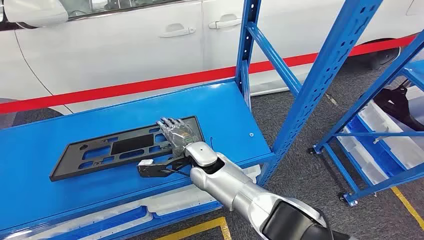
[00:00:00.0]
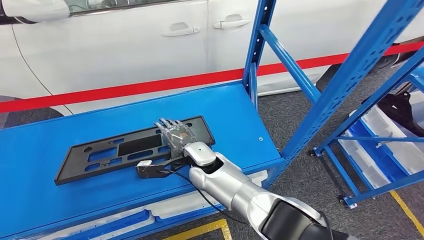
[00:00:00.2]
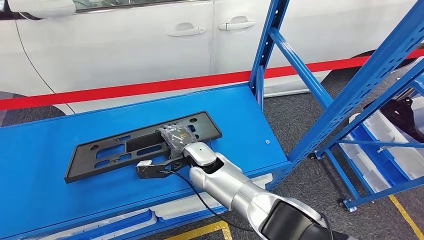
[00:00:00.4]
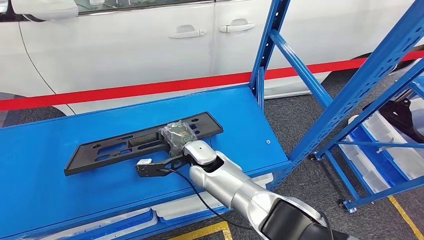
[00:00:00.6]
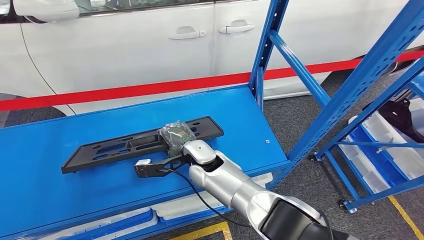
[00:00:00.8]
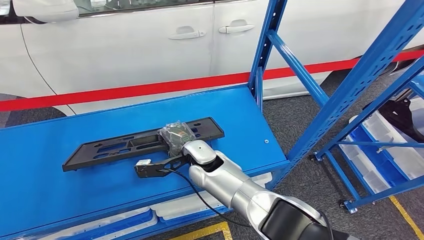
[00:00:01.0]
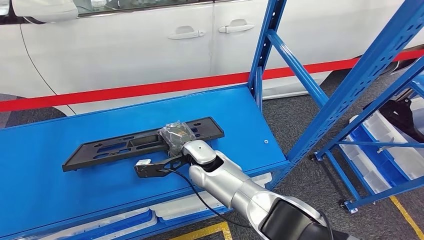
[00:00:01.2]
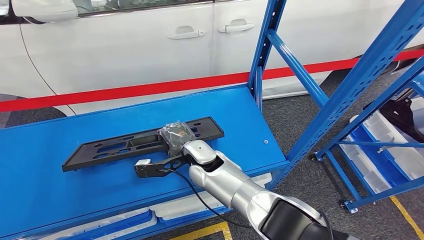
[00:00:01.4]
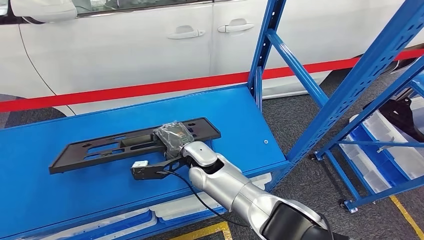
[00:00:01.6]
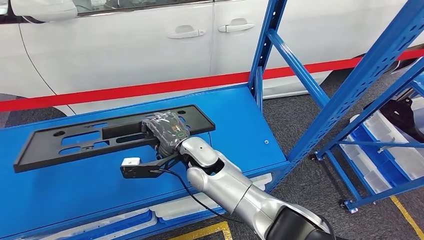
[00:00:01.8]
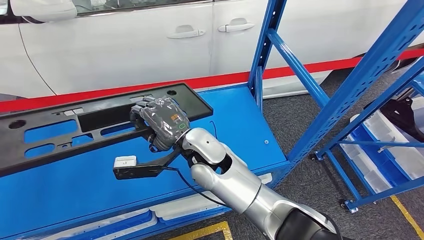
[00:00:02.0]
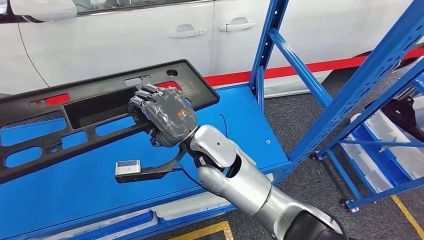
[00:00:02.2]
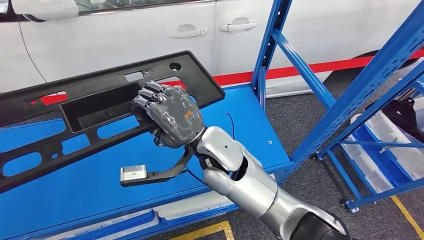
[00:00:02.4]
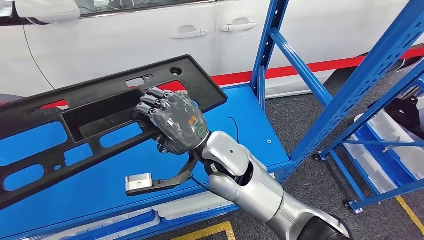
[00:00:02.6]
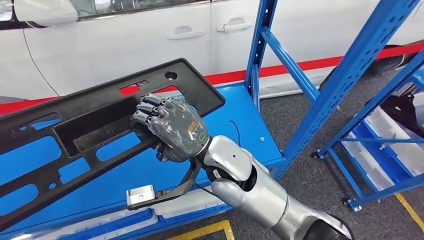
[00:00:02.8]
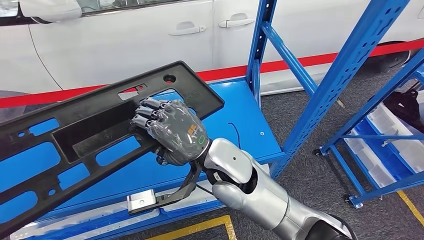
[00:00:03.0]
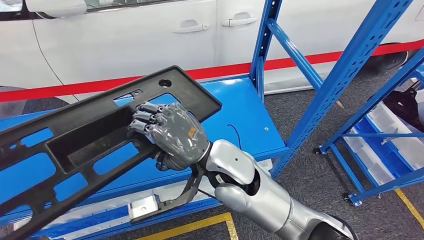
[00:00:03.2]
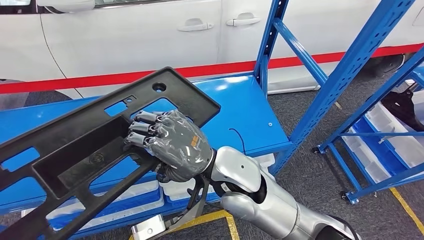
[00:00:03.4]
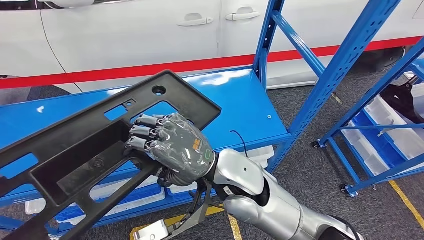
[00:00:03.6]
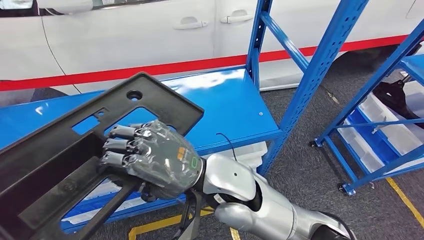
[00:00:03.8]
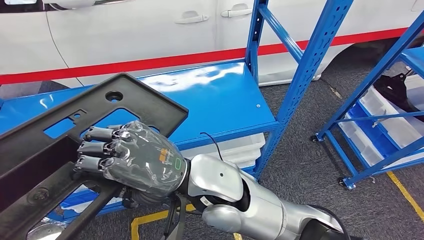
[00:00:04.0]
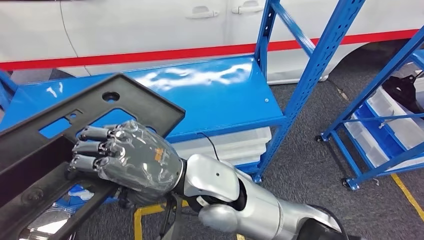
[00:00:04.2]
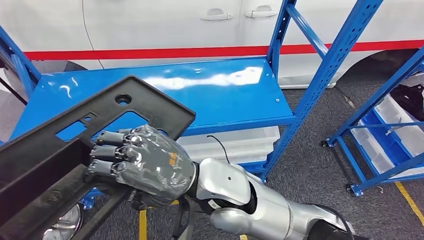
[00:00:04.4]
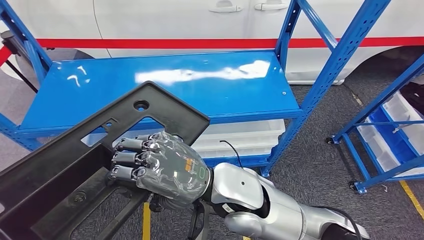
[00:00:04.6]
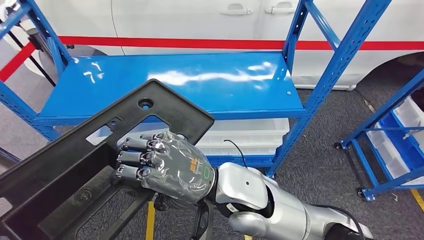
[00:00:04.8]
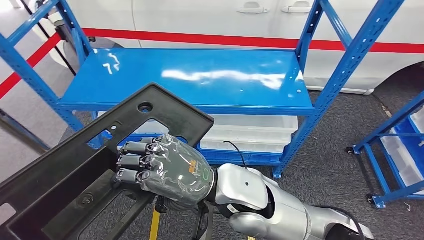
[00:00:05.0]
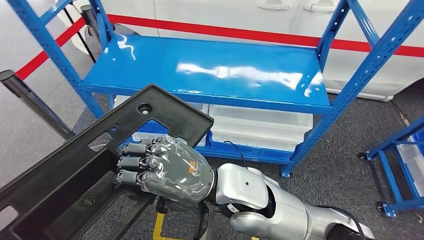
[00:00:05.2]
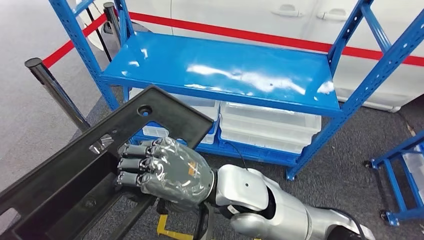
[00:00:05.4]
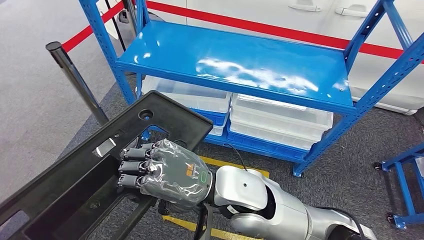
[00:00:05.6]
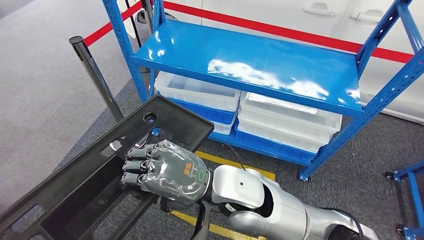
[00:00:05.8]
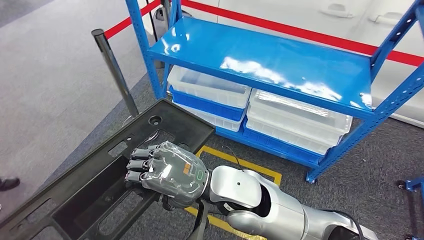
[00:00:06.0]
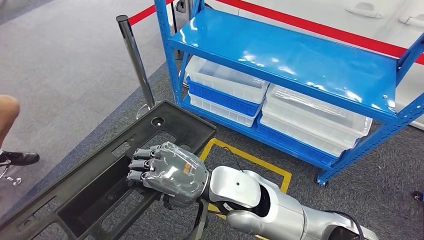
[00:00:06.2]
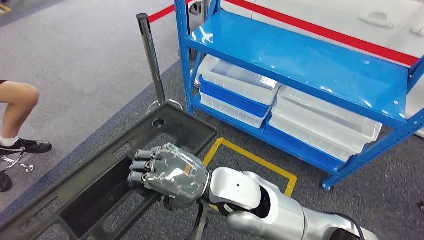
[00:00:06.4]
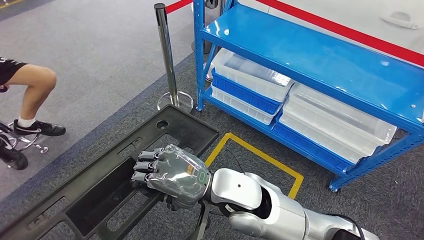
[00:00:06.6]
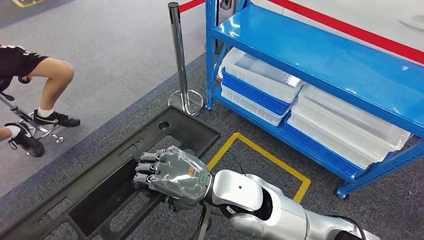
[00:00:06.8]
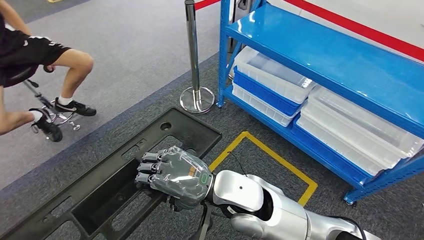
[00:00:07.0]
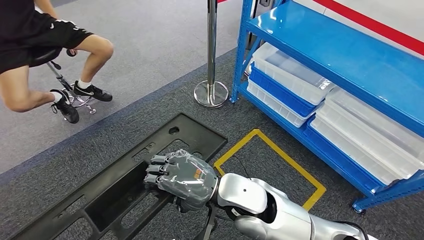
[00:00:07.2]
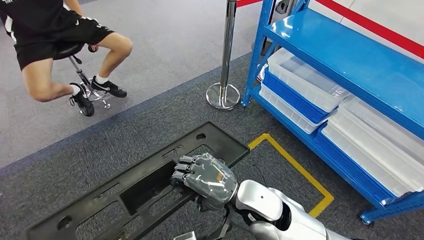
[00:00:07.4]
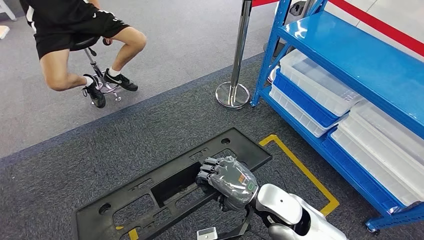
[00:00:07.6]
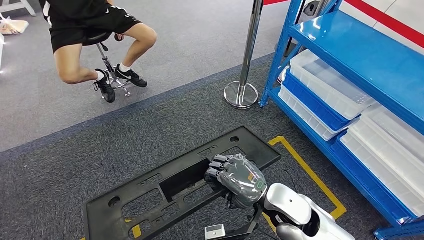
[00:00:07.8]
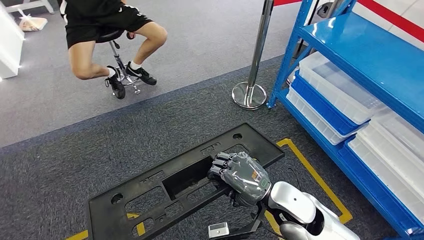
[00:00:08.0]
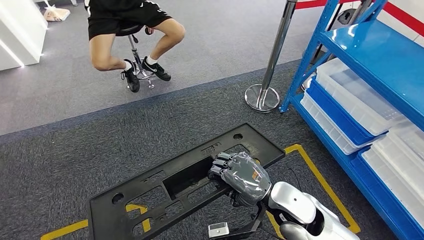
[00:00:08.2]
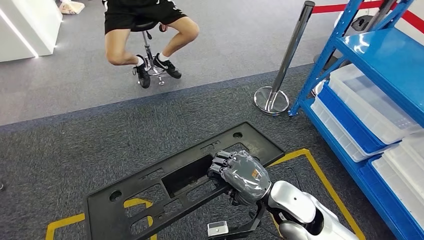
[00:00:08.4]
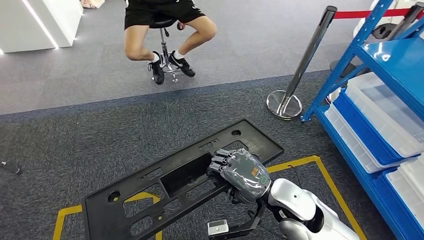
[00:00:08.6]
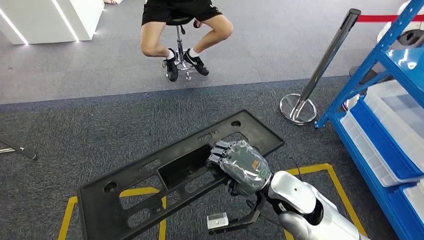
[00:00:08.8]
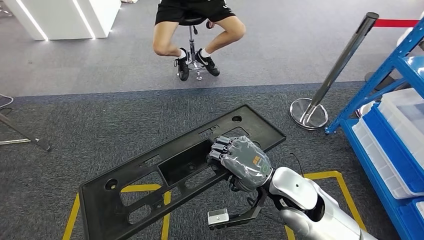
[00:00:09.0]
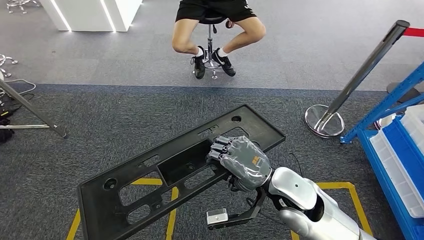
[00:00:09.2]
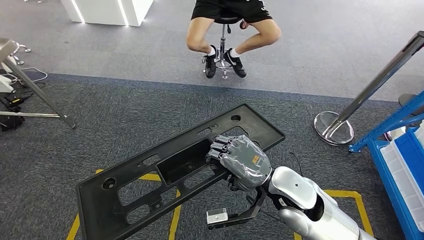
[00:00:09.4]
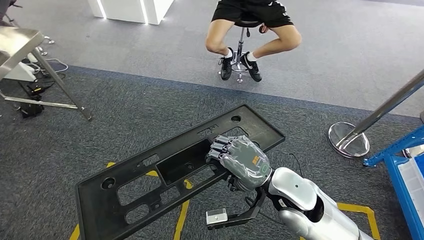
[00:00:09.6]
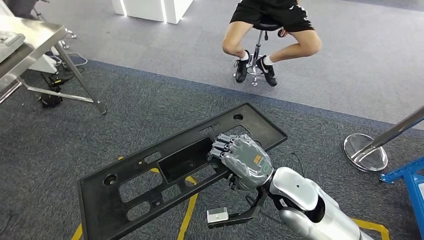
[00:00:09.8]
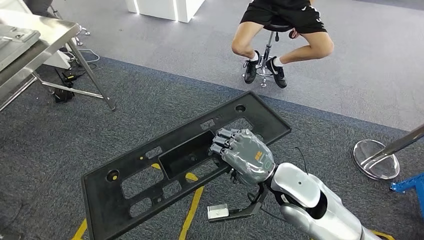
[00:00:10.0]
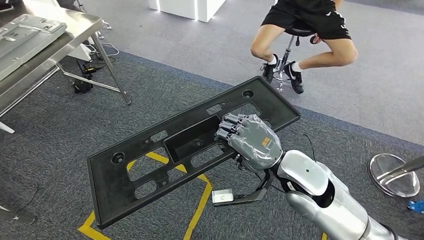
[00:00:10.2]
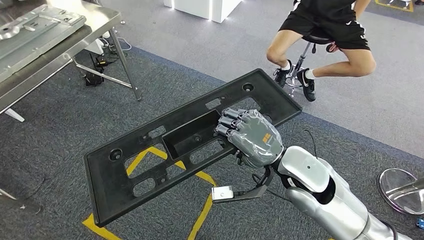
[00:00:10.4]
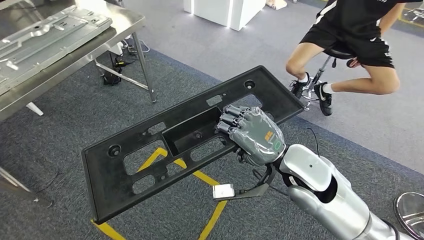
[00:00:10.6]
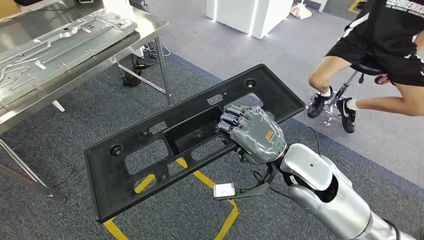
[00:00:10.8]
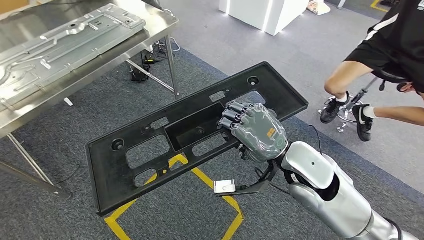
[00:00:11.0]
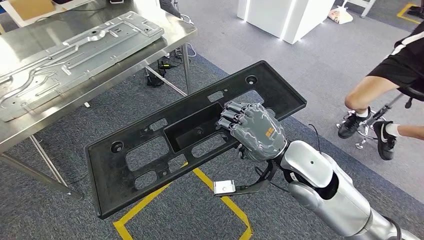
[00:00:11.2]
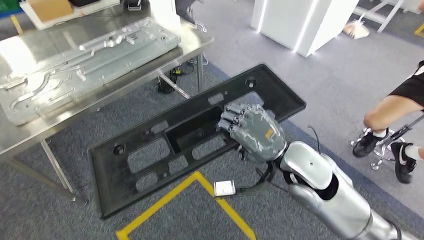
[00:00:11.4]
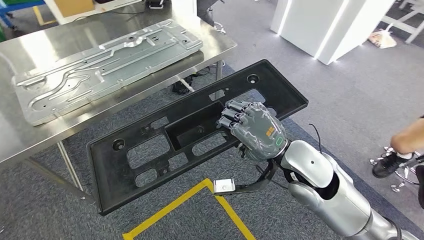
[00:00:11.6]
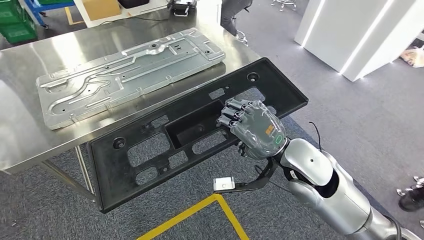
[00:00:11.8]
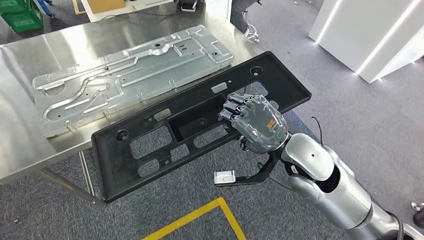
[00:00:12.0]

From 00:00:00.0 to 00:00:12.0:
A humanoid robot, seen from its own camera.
Step, from 00:00:00.0 to 00:00:03.6: Pick up the large material from the shelf.
Step, from 00:00:05.2 to 00:00:11.2: Move the large material to the workbench.

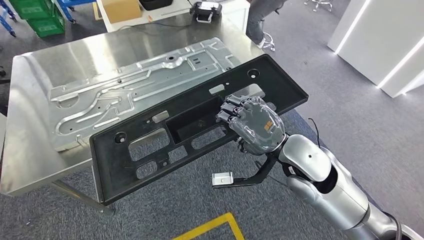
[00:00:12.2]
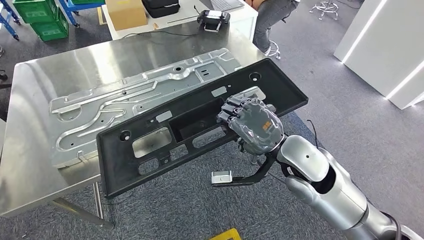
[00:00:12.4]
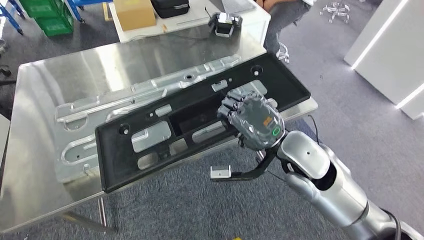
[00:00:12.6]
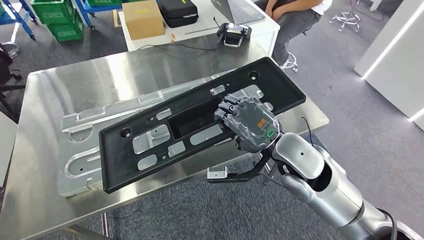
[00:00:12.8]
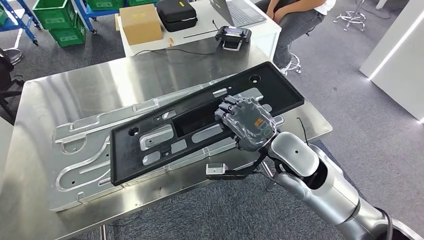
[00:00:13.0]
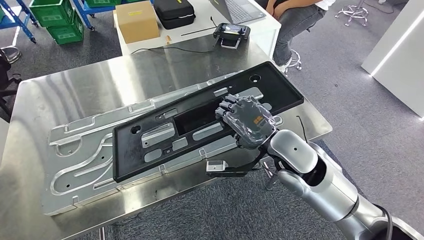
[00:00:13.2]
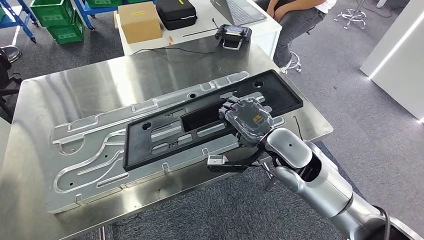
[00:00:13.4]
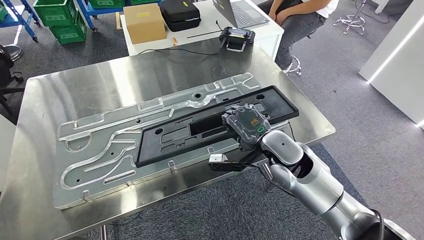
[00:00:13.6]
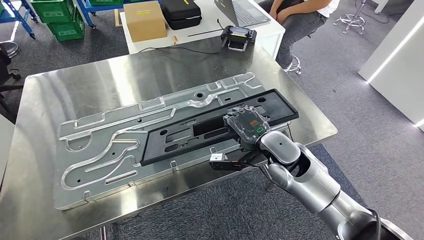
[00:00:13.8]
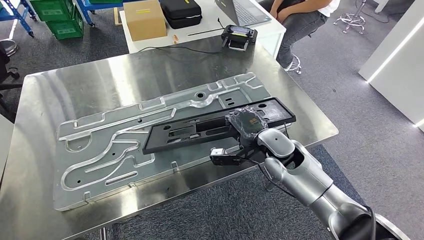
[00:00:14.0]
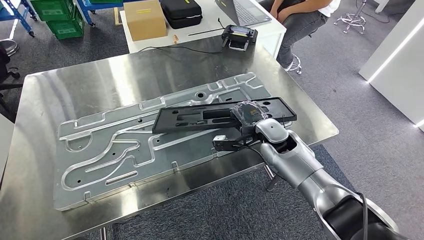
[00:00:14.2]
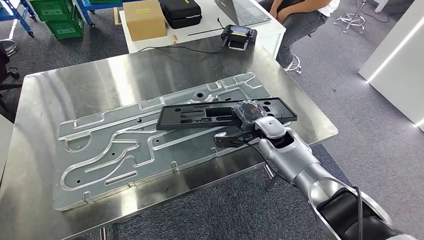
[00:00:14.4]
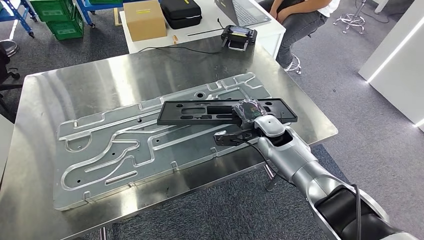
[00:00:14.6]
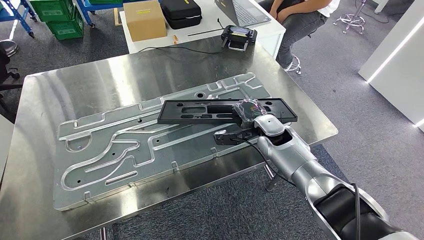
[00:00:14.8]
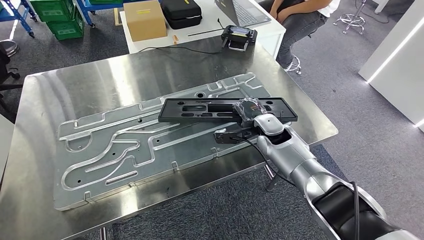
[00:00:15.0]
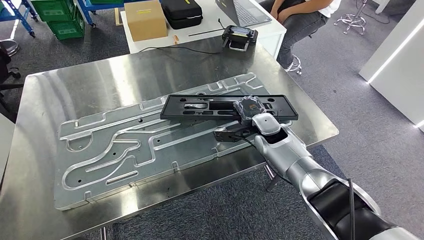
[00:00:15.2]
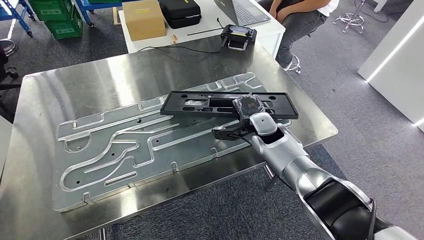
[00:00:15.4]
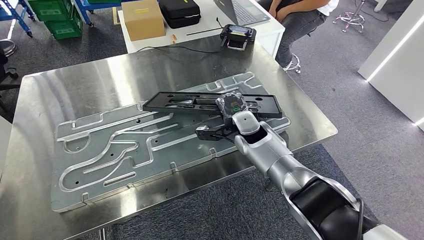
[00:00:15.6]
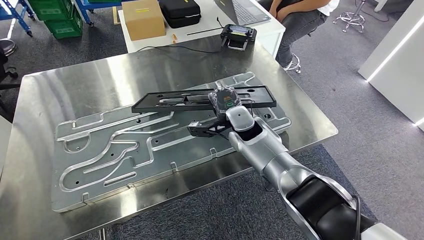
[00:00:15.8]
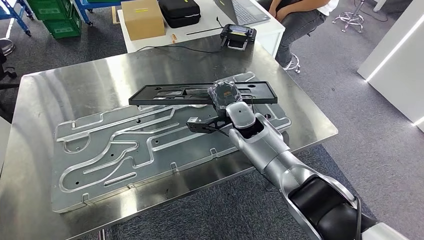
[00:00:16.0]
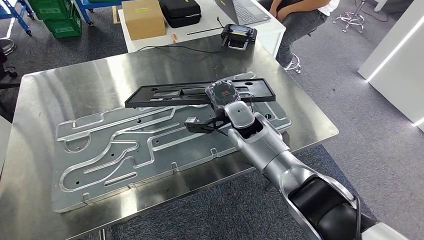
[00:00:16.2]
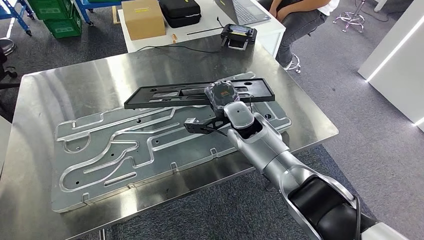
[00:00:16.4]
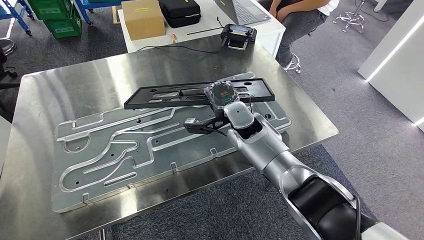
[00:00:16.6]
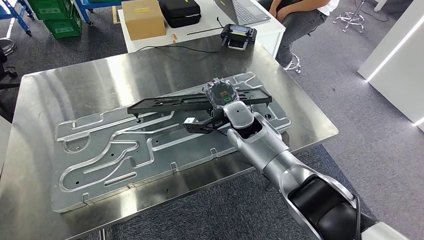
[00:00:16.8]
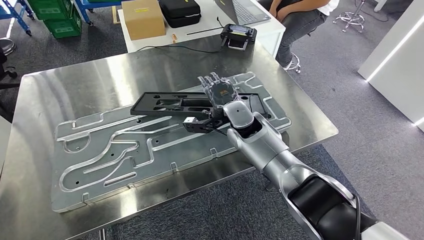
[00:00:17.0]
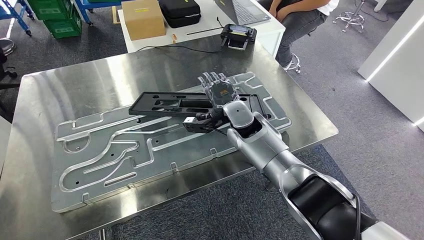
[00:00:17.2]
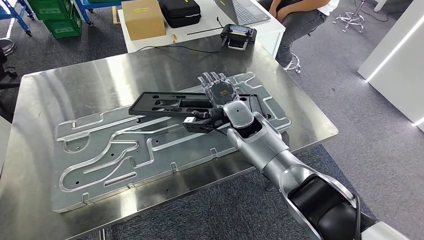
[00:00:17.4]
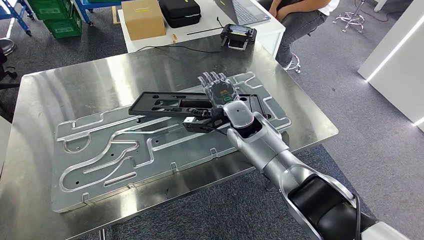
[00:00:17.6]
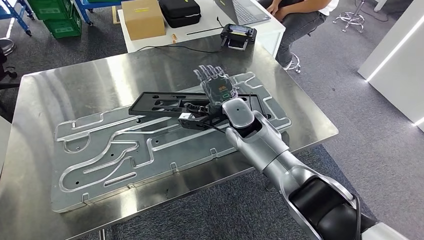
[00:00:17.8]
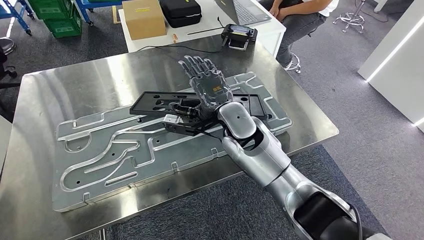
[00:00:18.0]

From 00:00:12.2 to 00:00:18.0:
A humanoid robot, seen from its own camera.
Step, from 00:00:12.6 to 00:00:18.0: Insert the large material into the corresponding slot on the workbench.
From 00:00:16.6 to 00:00:18.0: The right hand ends up approximately 5 cm from where it was.
